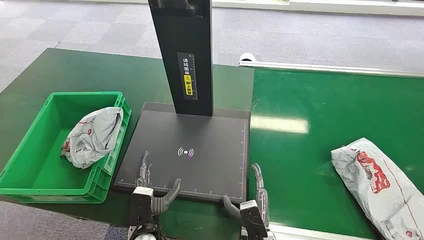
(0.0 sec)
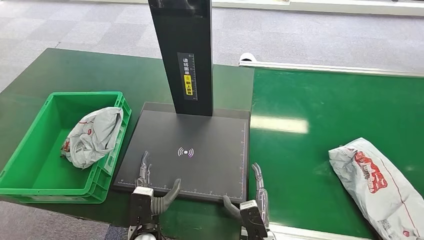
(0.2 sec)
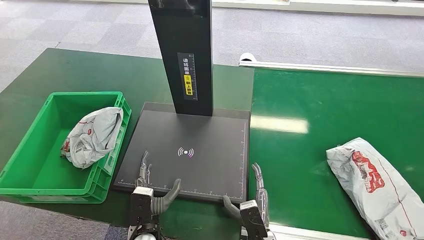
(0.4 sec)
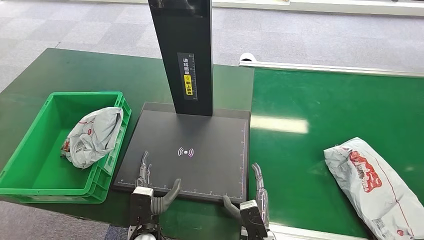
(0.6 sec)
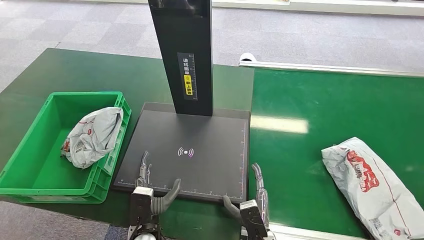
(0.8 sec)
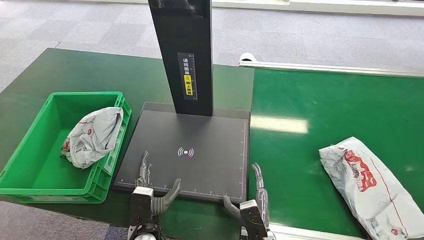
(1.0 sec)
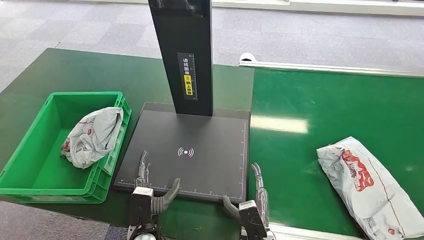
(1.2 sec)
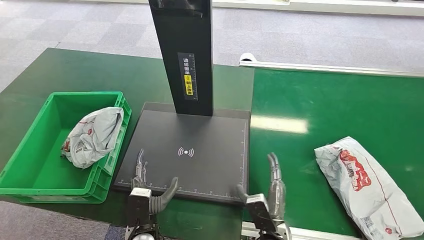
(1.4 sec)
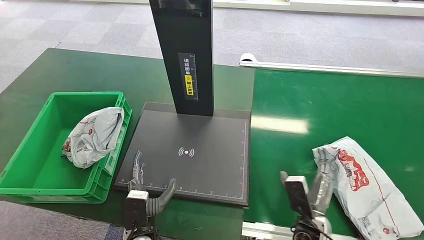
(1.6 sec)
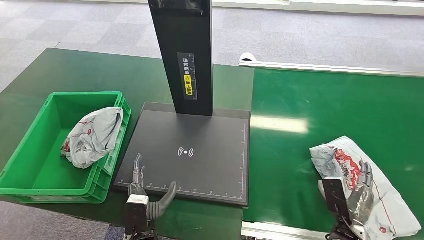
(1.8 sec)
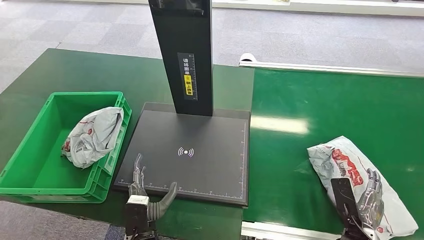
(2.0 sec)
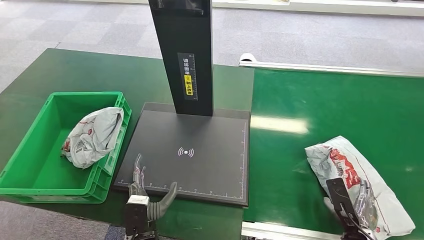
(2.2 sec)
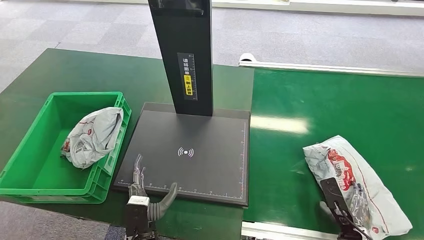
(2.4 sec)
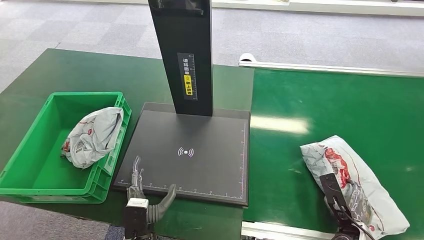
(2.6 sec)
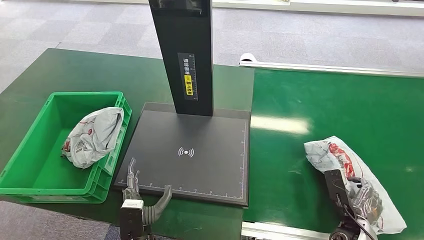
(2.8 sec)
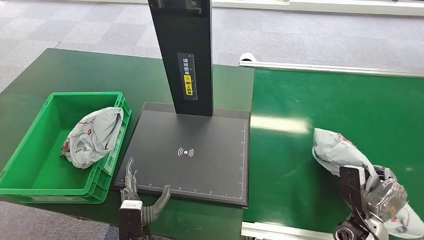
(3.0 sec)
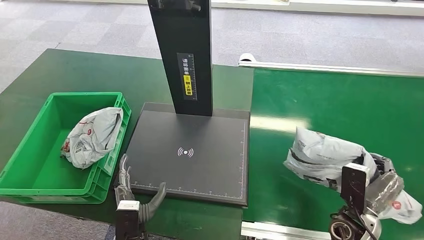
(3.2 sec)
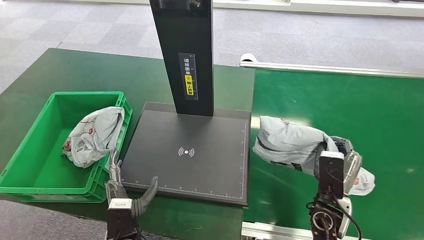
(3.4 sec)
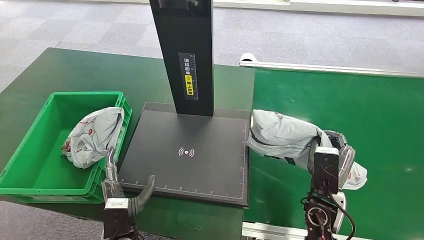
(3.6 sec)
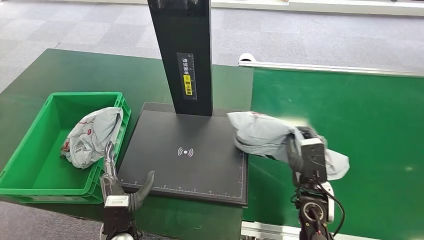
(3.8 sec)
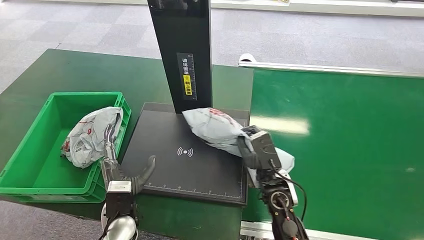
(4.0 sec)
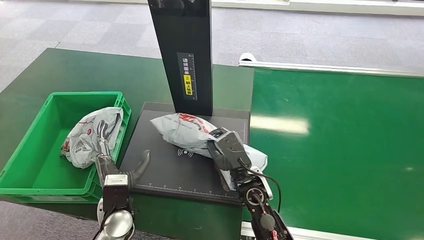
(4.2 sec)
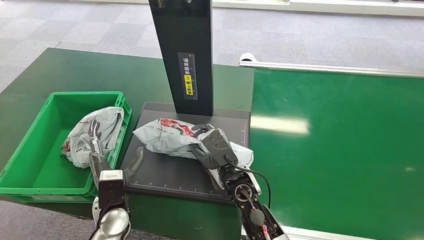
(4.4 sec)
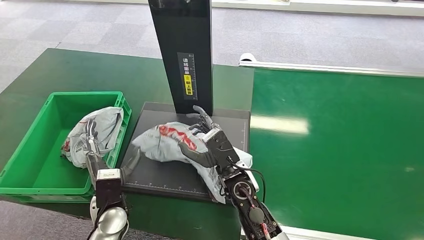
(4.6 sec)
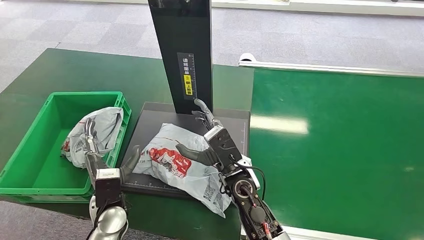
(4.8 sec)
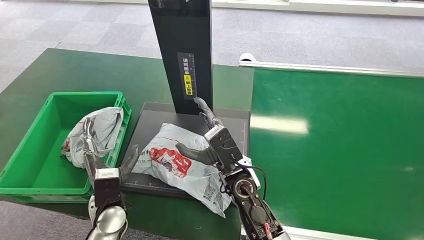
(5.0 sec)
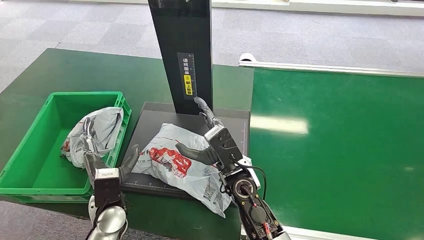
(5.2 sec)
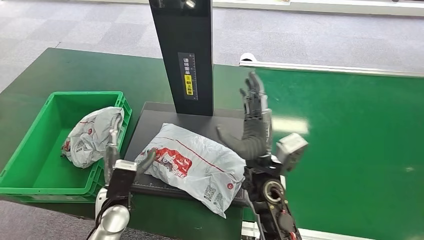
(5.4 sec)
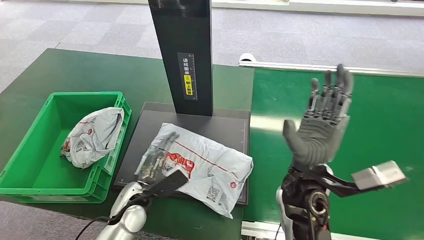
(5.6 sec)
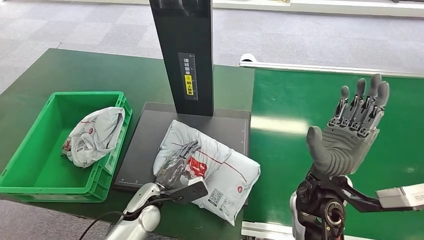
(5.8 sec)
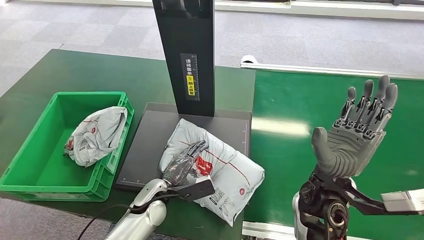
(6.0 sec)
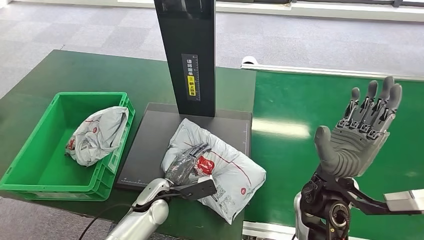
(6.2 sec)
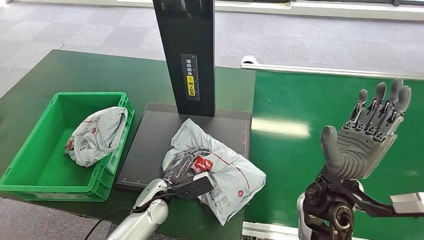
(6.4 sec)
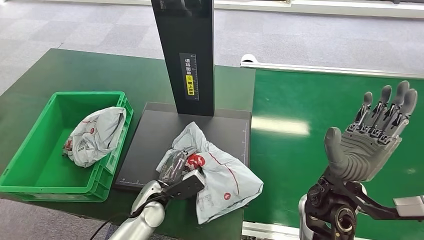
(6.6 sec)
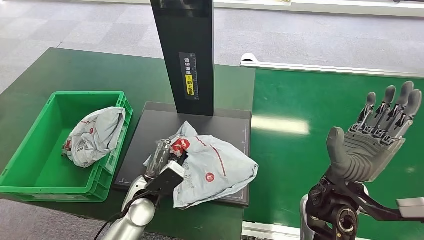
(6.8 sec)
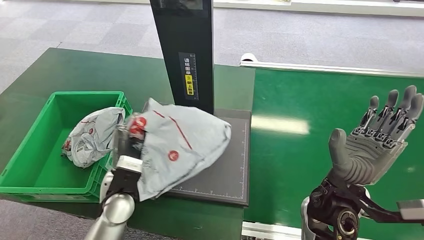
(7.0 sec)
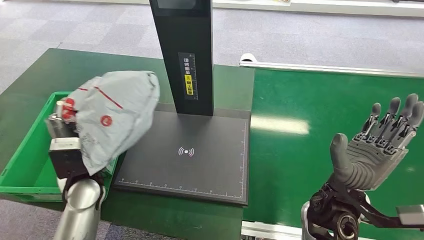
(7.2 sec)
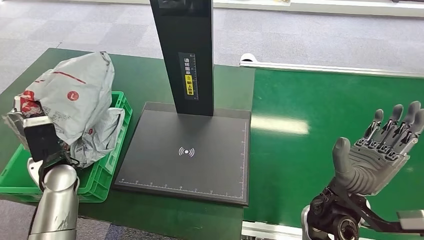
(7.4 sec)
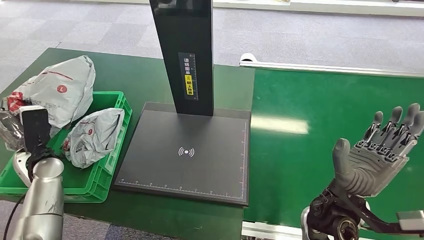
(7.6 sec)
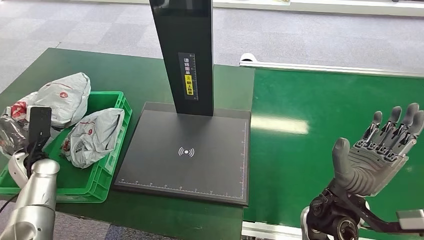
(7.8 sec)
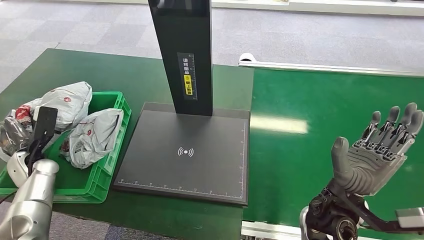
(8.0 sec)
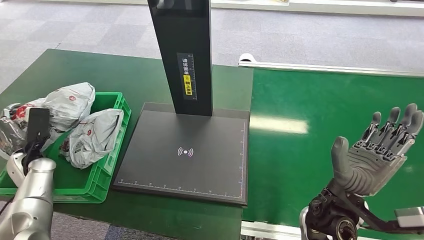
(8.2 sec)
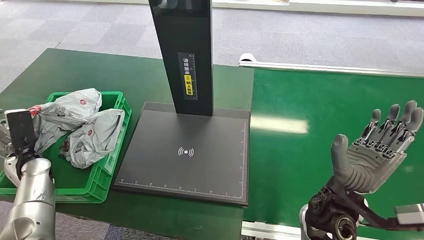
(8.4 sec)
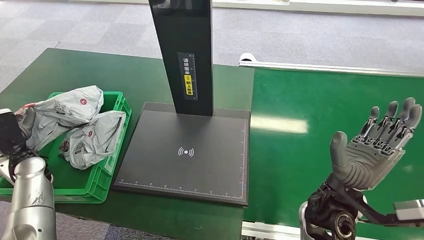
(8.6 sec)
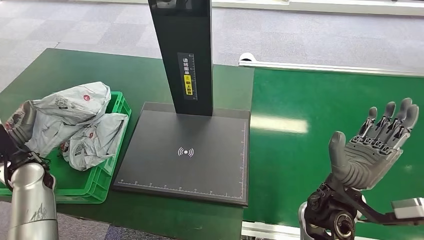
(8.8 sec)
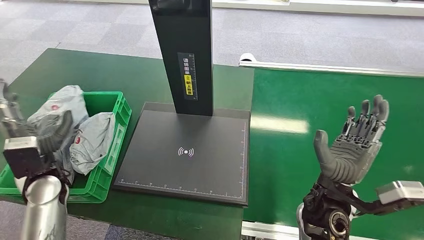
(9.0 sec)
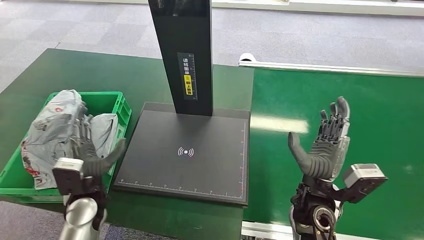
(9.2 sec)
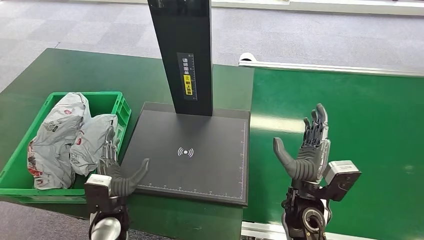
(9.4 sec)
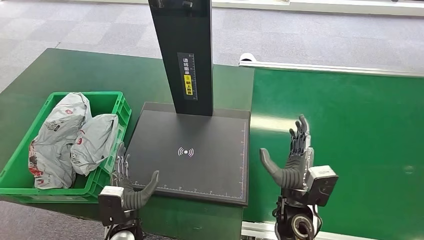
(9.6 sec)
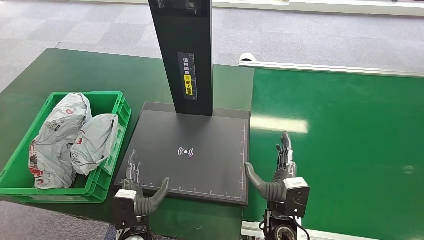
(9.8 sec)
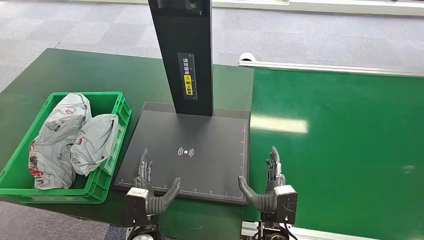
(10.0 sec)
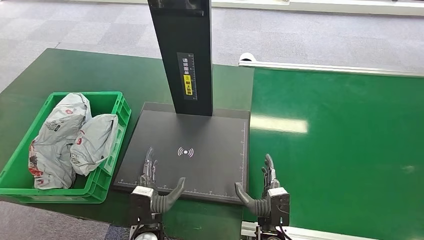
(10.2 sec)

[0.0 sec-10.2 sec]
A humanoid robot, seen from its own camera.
Step, 0.0 sec to 3.4 sec: Pick up the package from the conveyor belt.
Step, 3.8 sec to 5.4 sec: Place the package onto the inbound machine.
Step, 5.6 sec to 7.2 sec: Pick up the package from the inbound machine.
Step, 7.4 sec to 10.2 sec: Place the package into the parcel locker.
1.4 sec to 3.0 sec: The right hand moves to the right, some 20 cm.
8.8 sec to 10.2 sec: The left hand goes roughly 35 cm to the right, backward and downward. Meanwhile the right hand goes about 20 cm downward.
